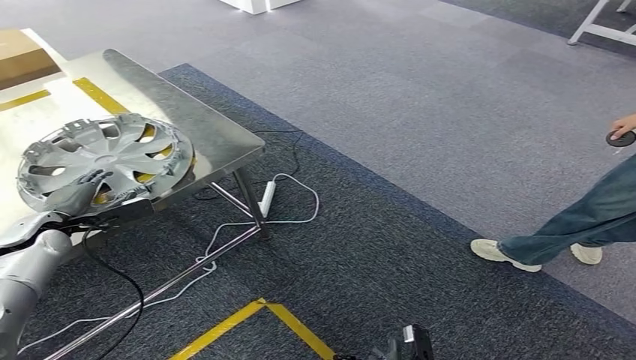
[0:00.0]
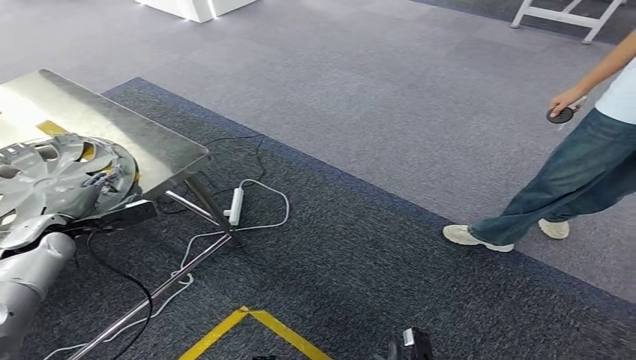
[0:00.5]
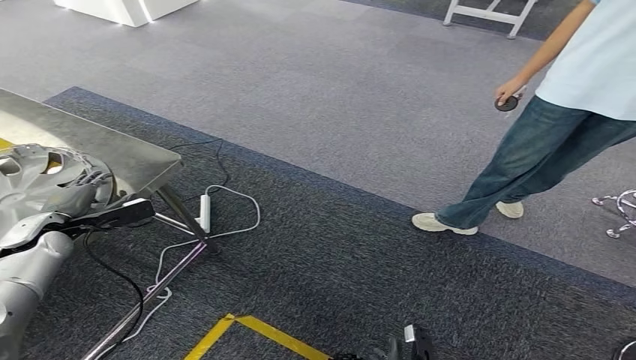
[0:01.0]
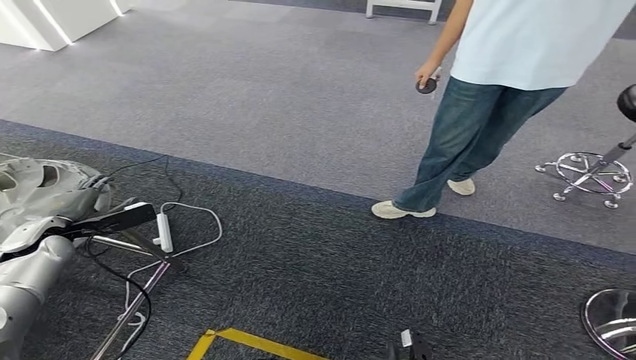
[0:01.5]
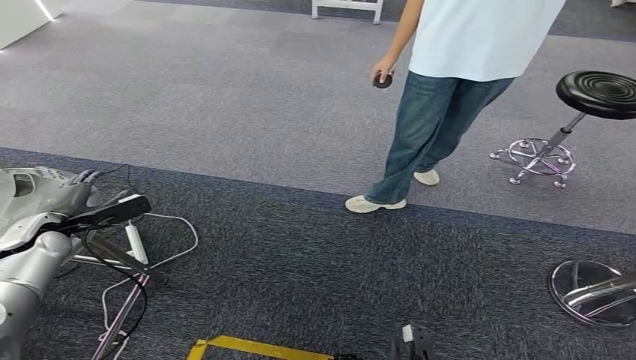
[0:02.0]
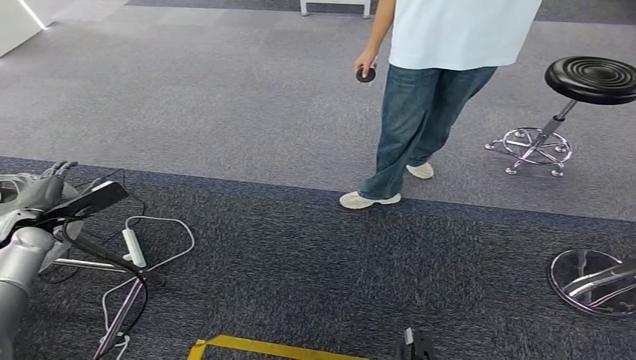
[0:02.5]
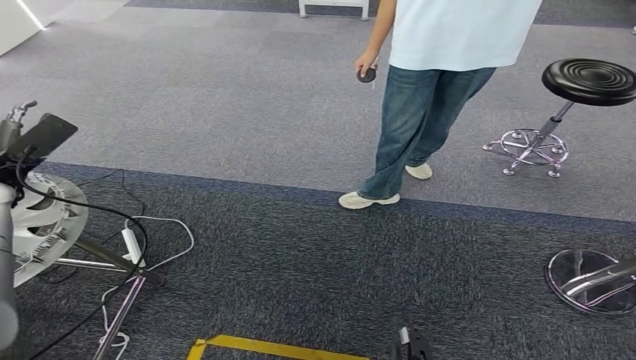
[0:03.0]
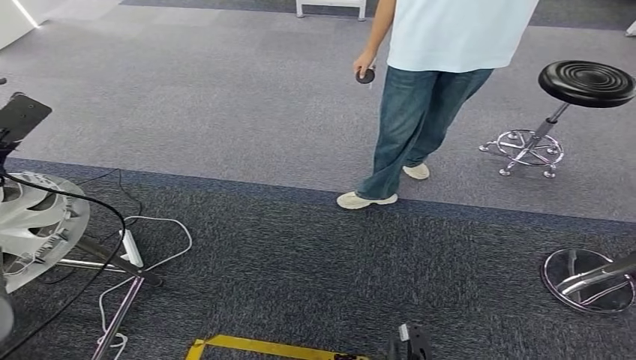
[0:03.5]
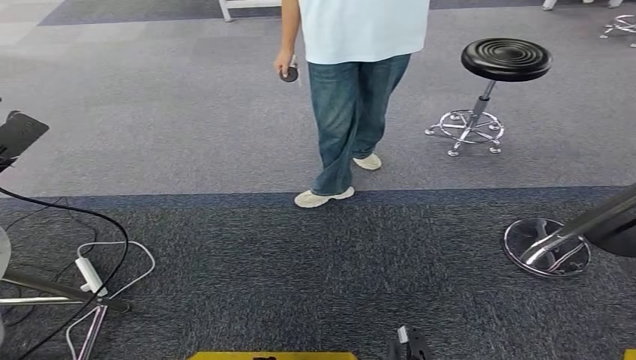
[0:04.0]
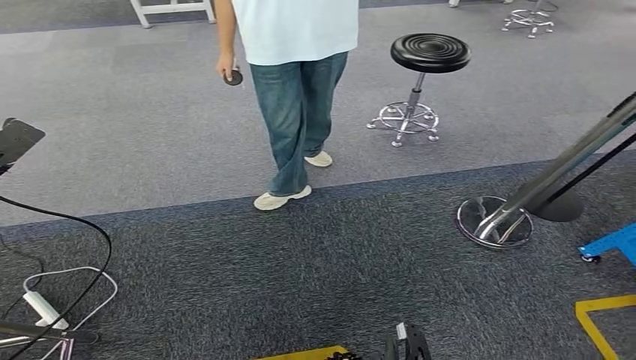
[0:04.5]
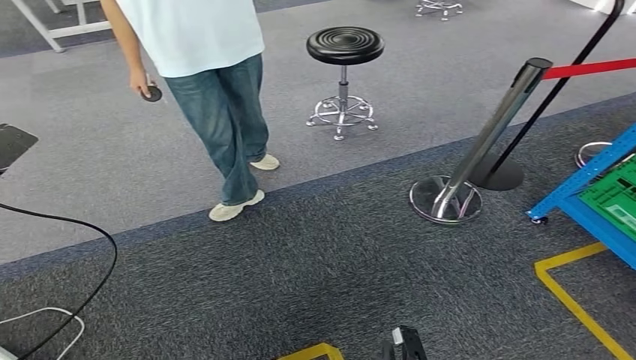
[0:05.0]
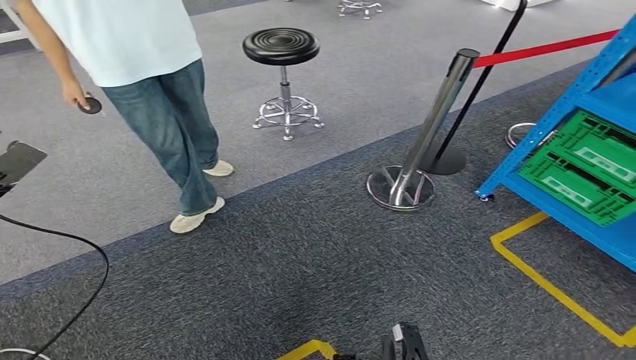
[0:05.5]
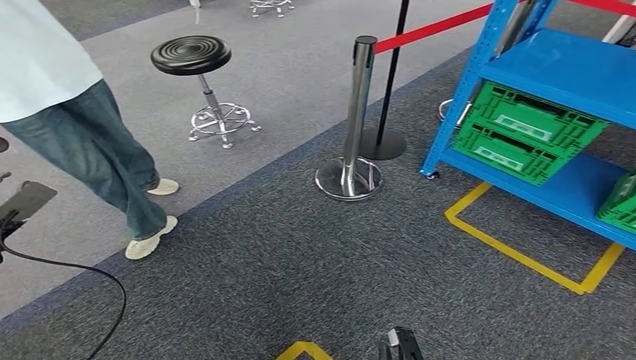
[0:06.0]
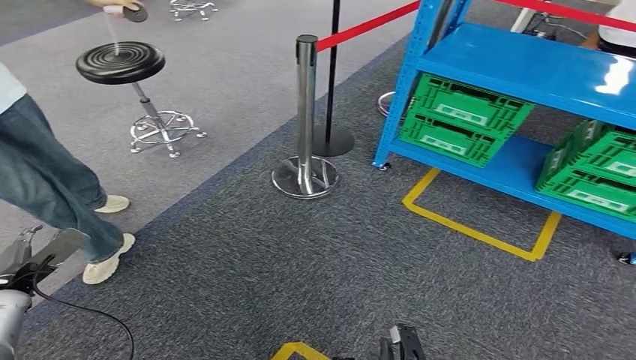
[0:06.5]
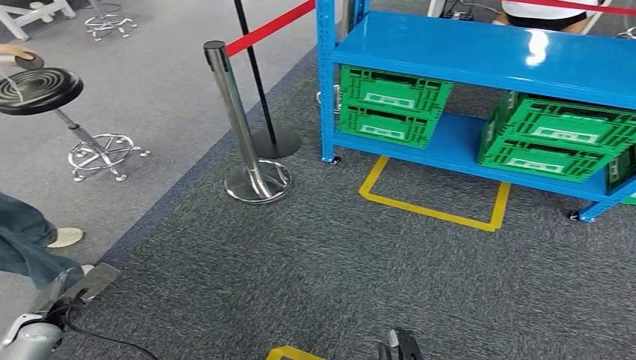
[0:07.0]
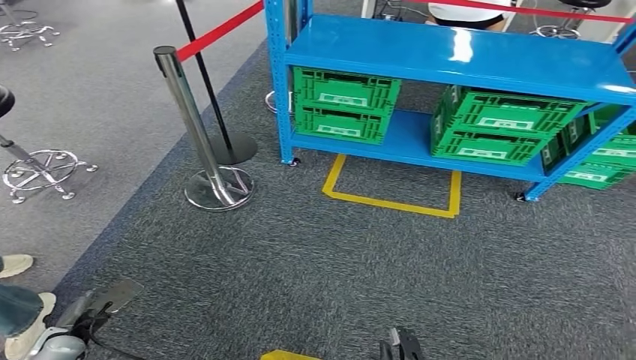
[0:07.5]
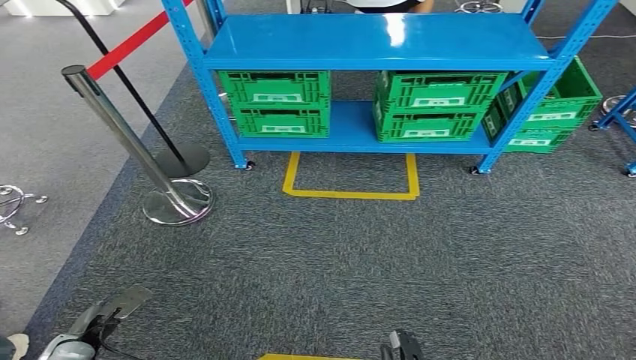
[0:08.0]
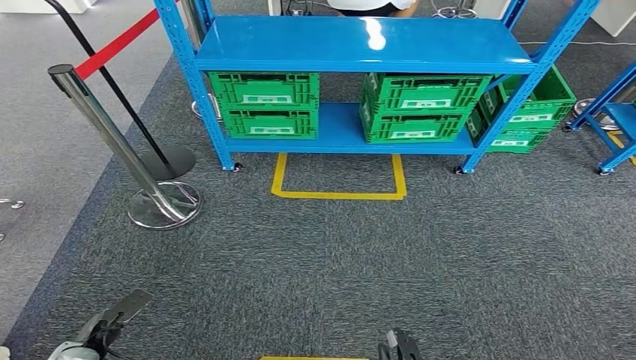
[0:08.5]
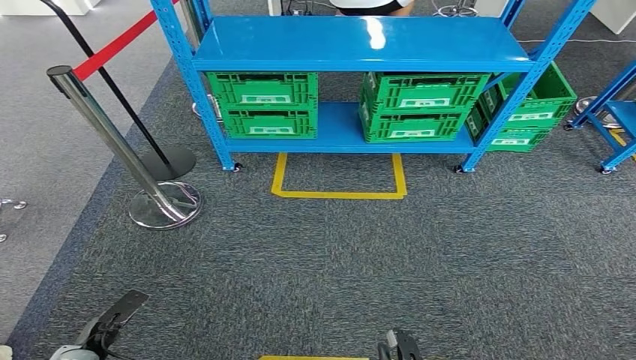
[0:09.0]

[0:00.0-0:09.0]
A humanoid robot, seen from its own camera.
Step, 0:00.5 to 0:09.0: Return to the initial position at the workbench.
